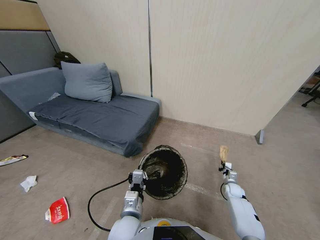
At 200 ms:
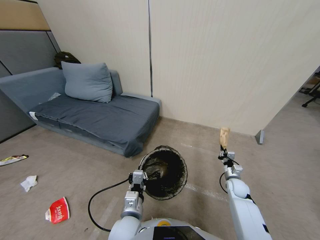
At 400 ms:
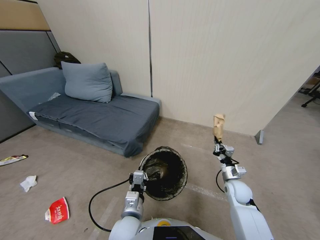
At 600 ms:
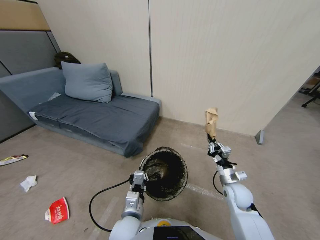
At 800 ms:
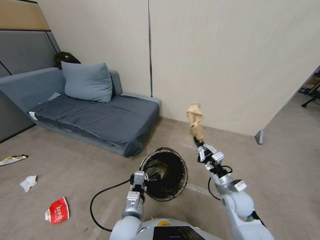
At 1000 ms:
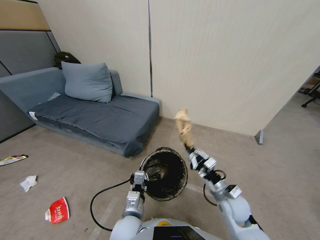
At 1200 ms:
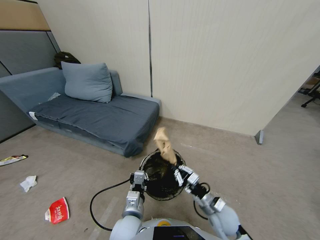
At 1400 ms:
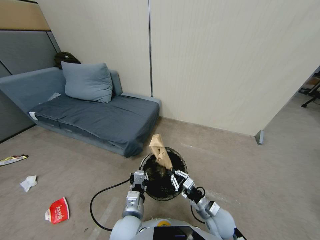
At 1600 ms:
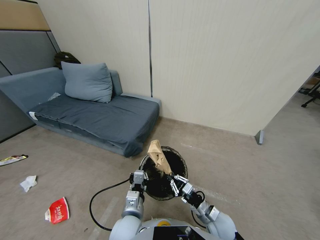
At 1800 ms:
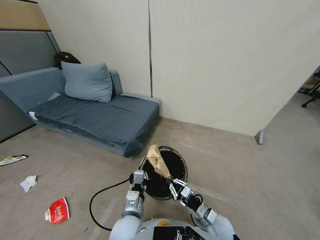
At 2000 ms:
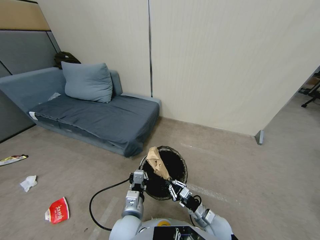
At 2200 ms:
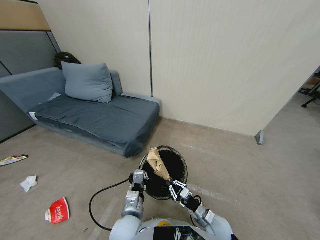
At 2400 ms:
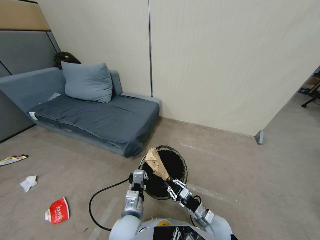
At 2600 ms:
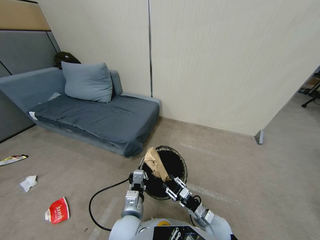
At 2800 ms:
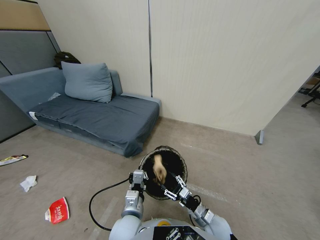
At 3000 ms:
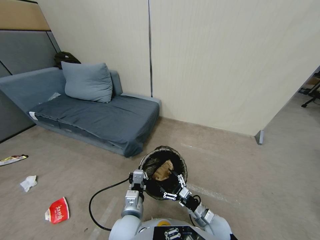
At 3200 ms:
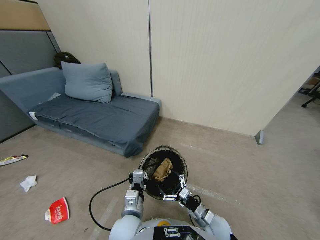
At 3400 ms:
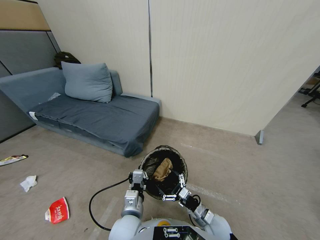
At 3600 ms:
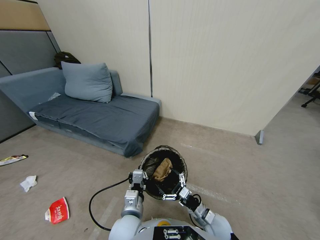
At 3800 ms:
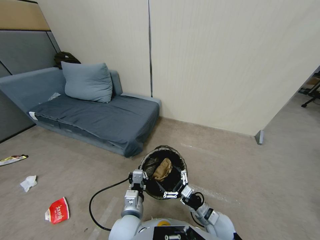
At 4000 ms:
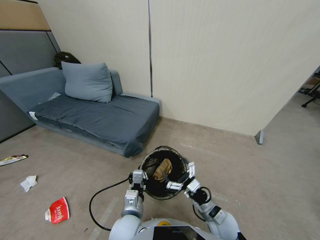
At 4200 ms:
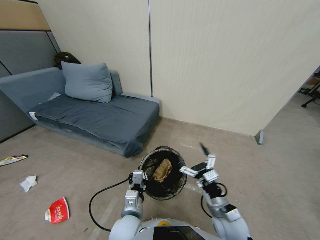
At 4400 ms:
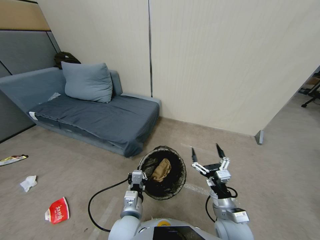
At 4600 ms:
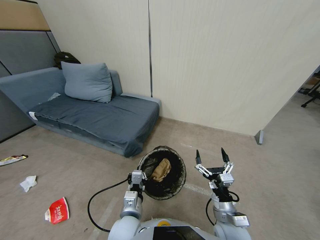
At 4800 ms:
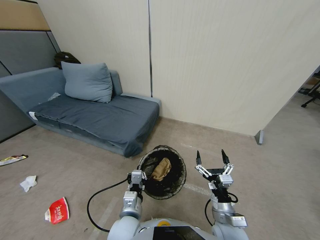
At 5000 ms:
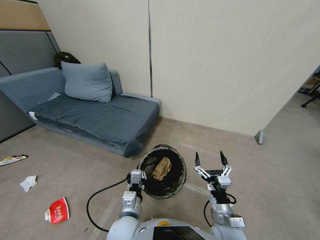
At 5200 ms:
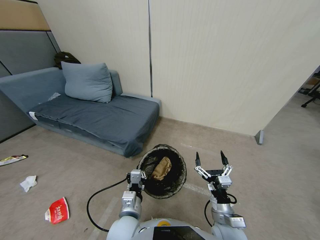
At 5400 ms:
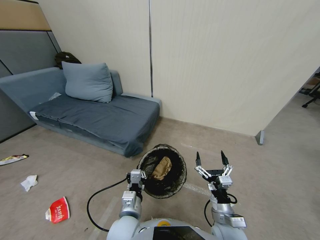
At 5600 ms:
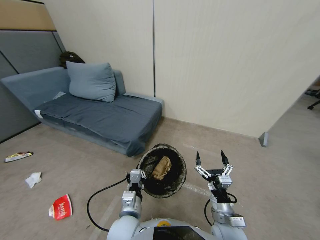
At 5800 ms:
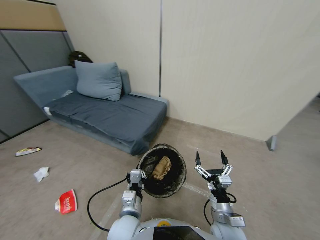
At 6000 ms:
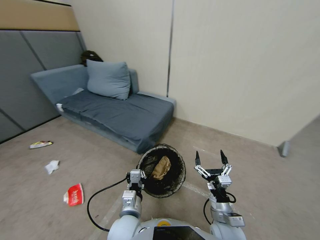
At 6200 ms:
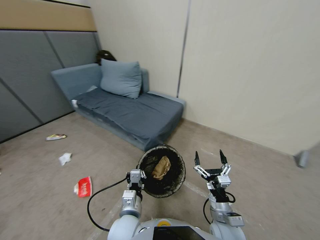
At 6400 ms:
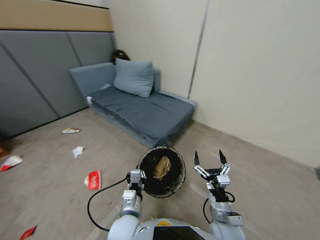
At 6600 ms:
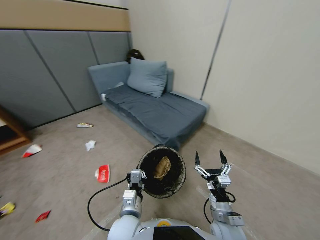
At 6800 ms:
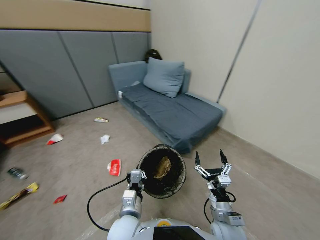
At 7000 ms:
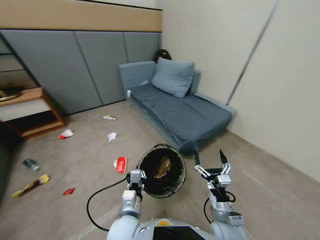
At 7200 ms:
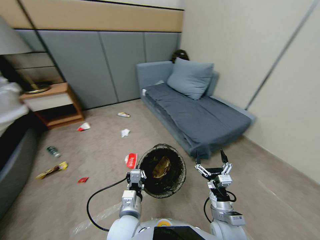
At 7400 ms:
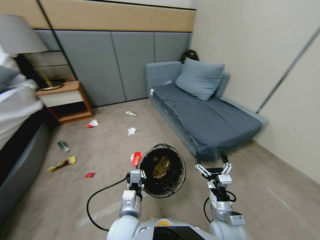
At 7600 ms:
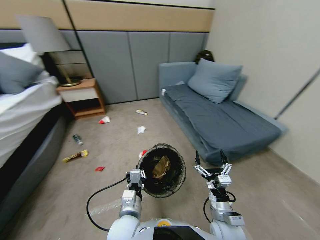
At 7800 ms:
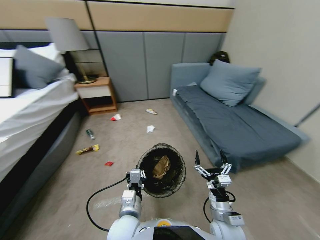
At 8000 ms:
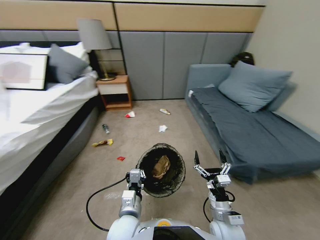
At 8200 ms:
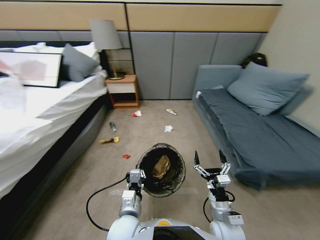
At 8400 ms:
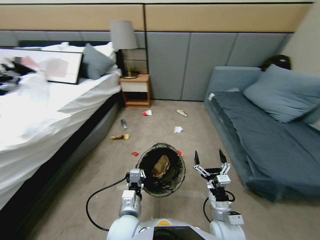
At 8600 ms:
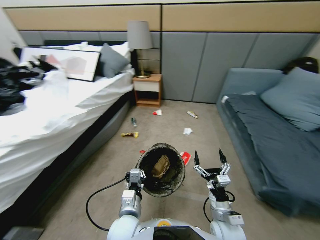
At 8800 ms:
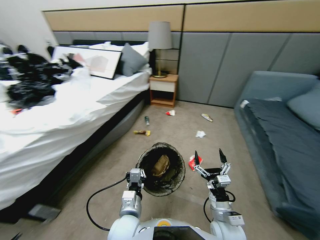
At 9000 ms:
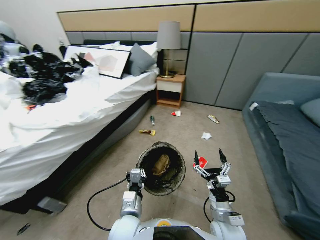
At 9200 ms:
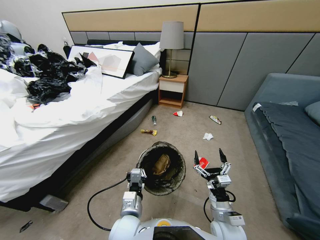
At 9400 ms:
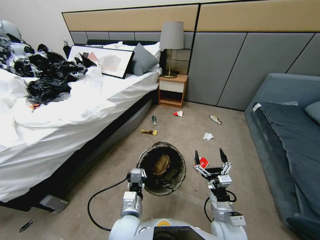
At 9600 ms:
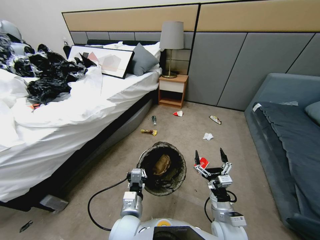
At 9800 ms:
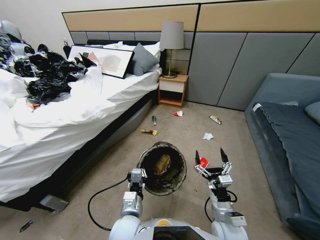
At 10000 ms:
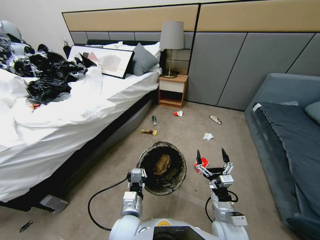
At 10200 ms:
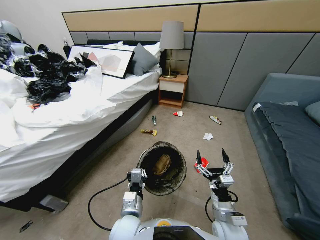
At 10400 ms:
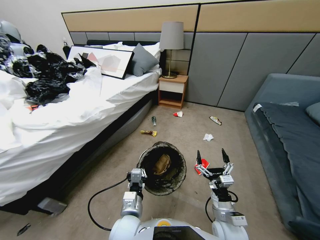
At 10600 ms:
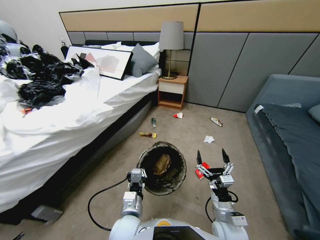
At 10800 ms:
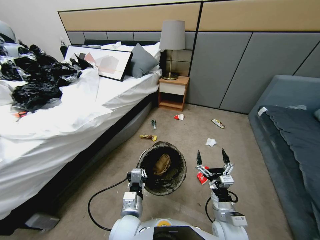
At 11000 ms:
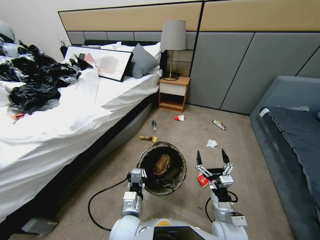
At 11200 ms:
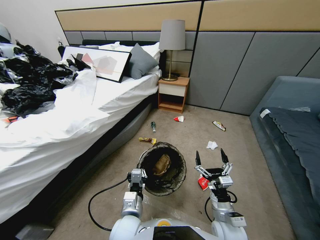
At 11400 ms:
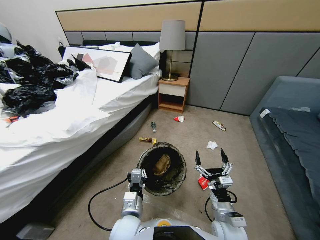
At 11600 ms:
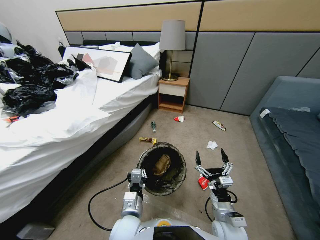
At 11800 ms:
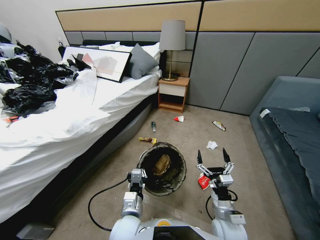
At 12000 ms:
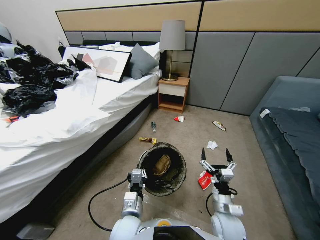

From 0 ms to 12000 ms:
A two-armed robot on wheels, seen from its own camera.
Task of the whole recording: Pick up the trash bin, then pick up the garbage from the floor and place it into the trash bin.
From 0 ms to 1600 ms: The right gripper heads to the left, backward and upward, covering approximately 25 cm.
From 1600 ms to 3000 ms: The right gripper opens.
From 3000 ms to 4400 ms: The right gripper travels upward by some 10 cm.
From 4400 ms to 6000 ms: The grippers make only small movements.
From 9000 ms to 10400 ms: The two grippers keep their place.

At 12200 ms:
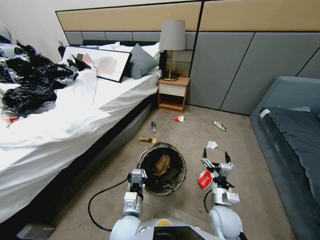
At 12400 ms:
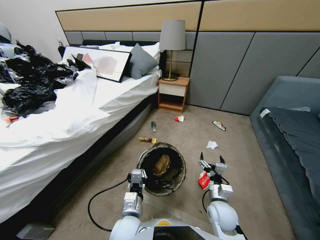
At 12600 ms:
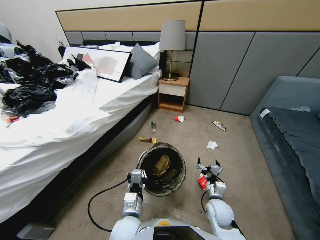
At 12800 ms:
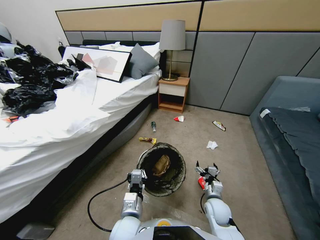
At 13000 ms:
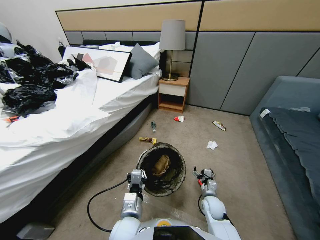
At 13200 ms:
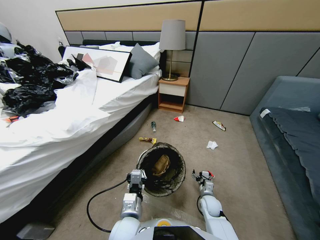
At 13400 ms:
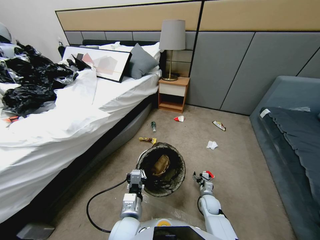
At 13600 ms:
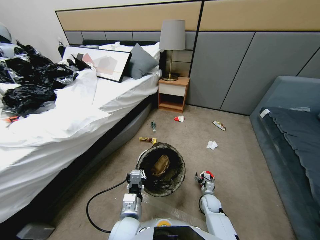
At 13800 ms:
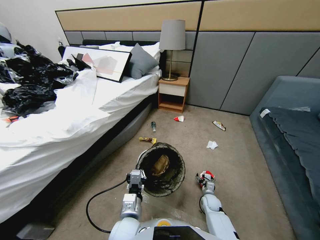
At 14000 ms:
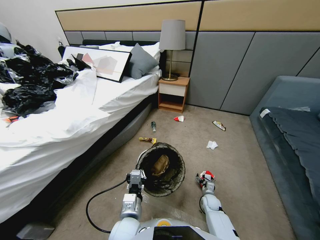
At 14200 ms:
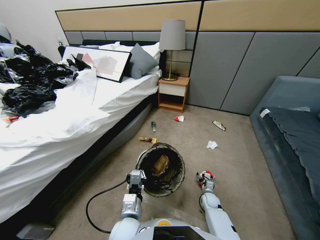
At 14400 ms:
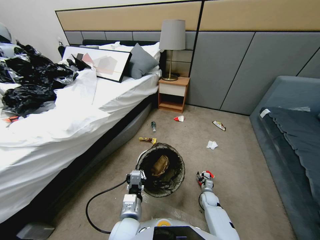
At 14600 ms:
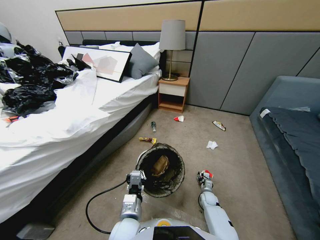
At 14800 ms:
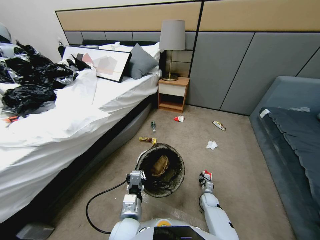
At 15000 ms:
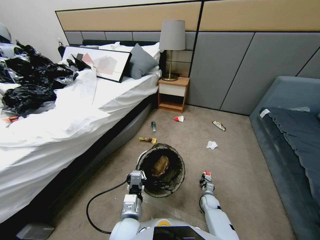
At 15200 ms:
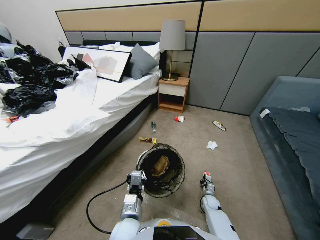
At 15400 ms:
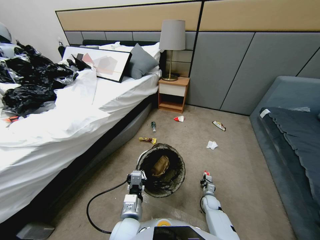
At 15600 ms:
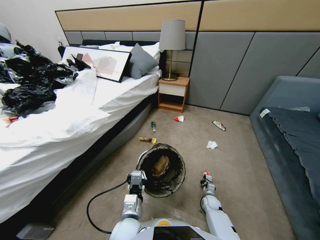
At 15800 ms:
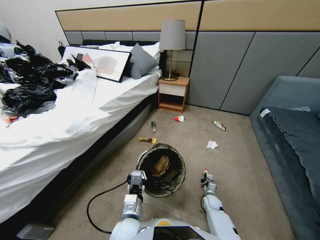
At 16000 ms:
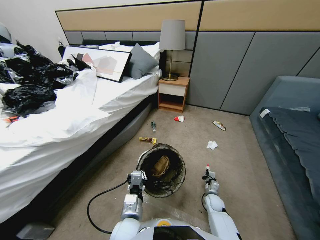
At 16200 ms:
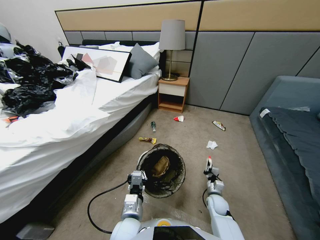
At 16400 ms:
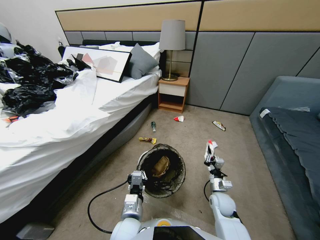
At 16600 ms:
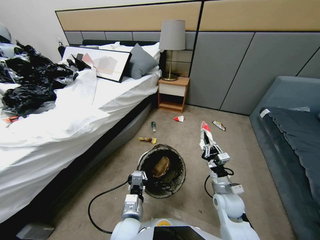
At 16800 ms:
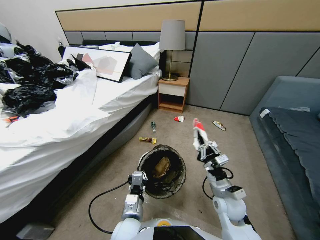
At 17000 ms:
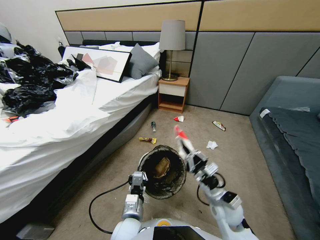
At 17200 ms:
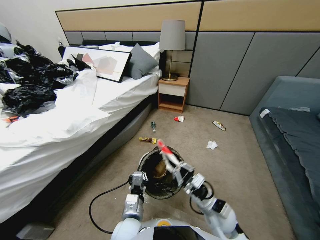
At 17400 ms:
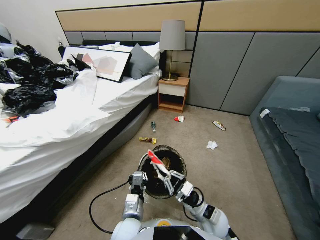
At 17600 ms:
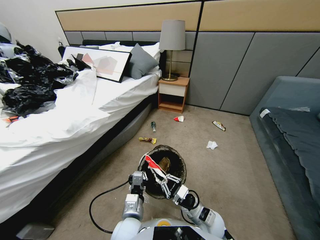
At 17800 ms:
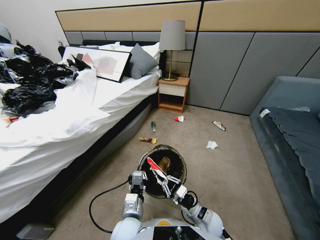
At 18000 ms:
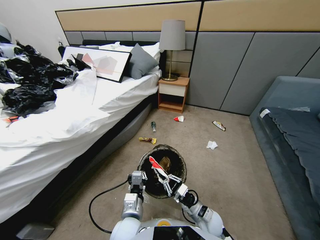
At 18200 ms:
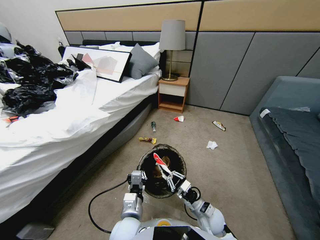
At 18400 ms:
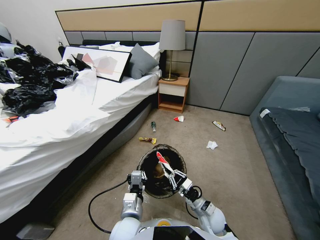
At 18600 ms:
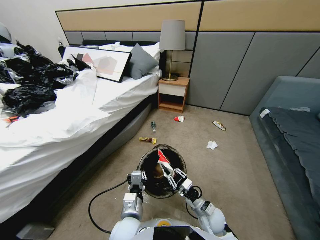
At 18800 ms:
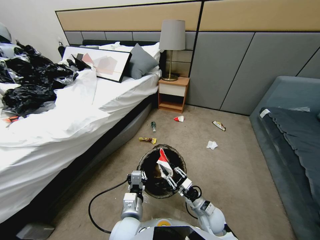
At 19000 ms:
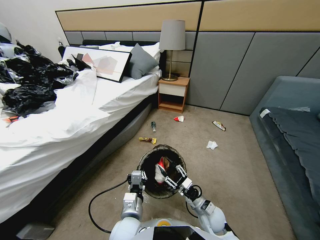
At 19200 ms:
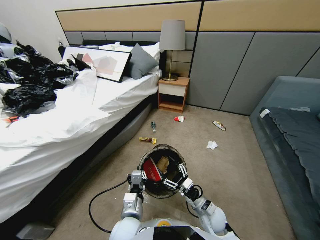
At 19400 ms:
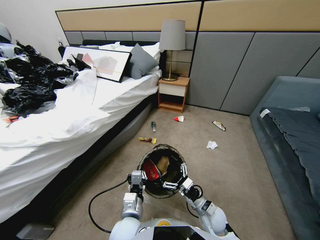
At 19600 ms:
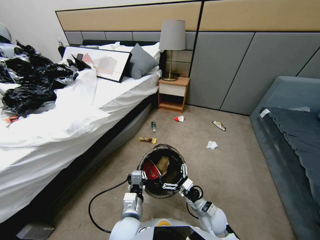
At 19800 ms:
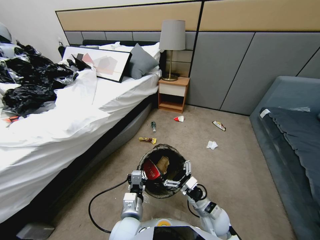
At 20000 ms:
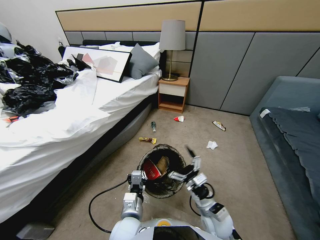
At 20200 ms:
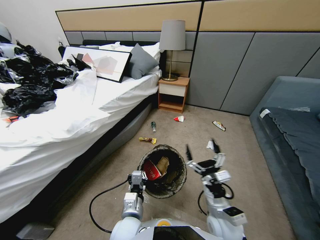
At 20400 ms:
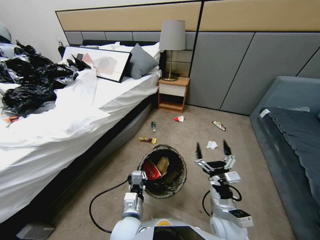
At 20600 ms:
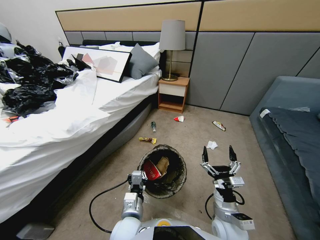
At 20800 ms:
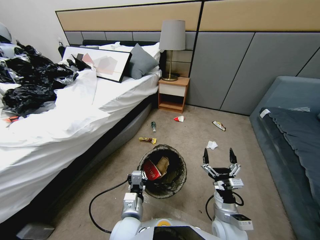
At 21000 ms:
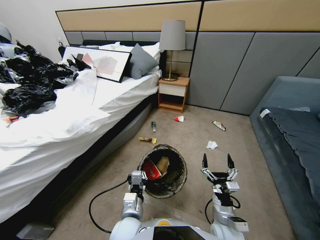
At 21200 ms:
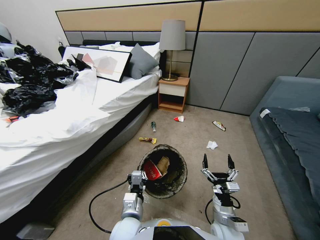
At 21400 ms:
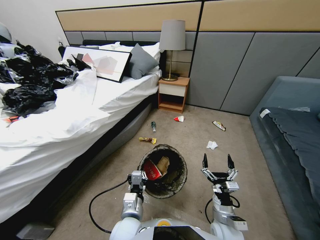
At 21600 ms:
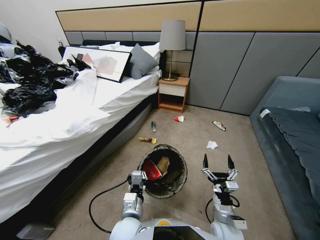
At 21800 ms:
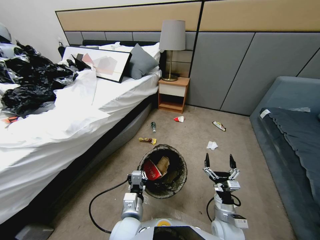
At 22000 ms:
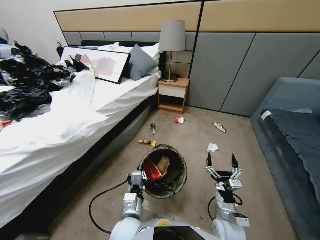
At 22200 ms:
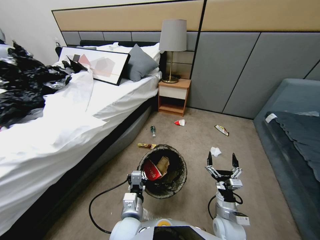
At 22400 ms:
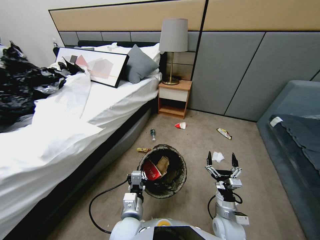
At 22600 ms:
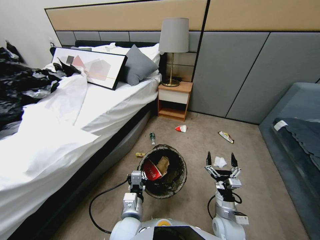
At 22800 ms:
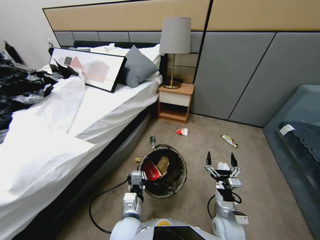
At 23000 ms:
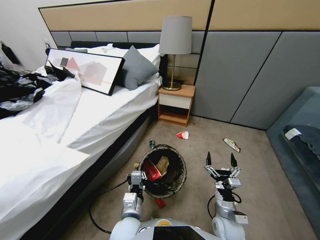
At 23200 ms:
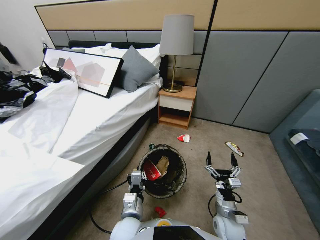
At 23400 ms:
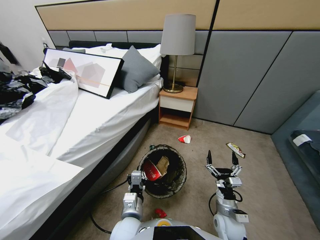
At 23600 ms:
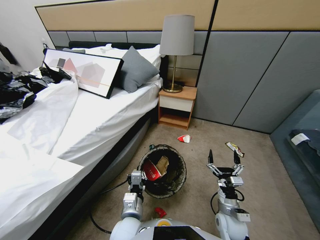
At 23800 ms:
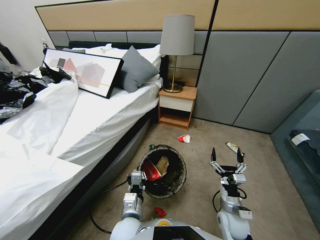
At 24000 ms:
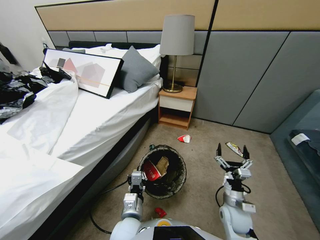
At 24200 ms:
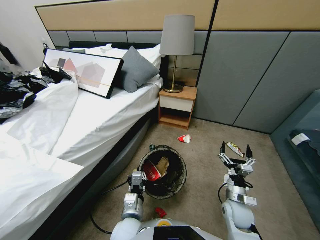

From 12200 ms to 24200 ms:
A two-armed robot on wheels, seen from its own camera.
Task of the whole recording: Pick up the trash bin, then pick up the garbage from the floor and place it into the trash bin.
From 12200 ms to 13800 ms: The right gripper travels downward and forward by roughly 25 cm.
From 13800 ms to 15200 ms: The right gripper closes its fingers.
From 15200 ms to 16600 ms: The right gripper goes roughly 30 cm upward.
From 16600 ms to 18200 ms: The right gripper shifts approximately 10 cm downward.
From 18200 ms to 19800 ms: The right gripper heads upward, covering approximately 5 cm, and opens its fingers.
From 19800 ms to 21200 ms: The right gripper shifts by some 5 cm.
From 22600 ms to 24200 ms: The right gripper travels to the right by about 5 cm.
